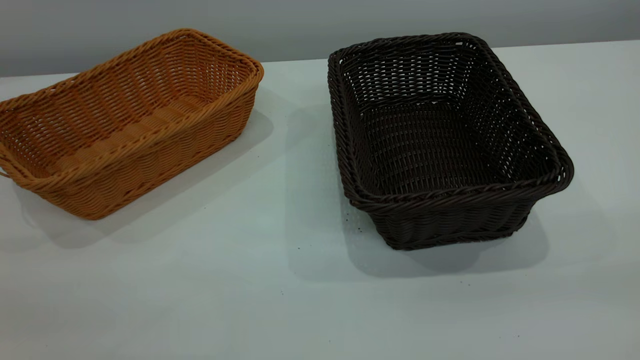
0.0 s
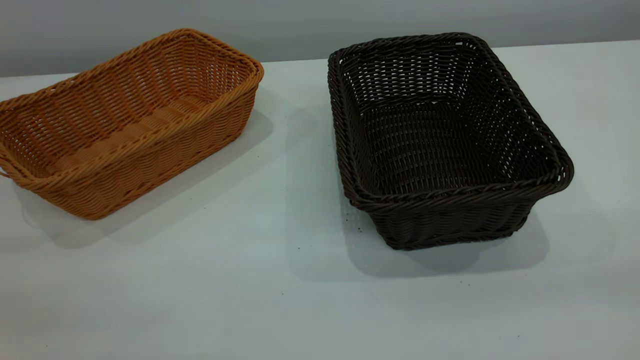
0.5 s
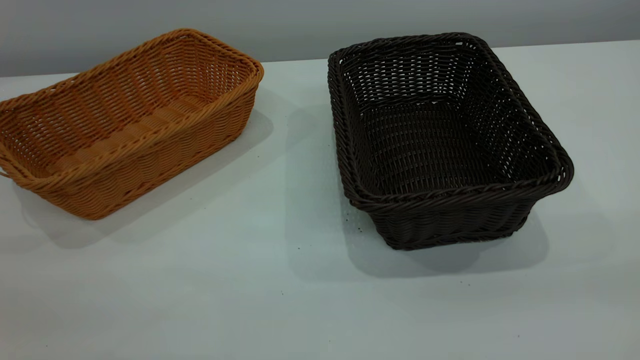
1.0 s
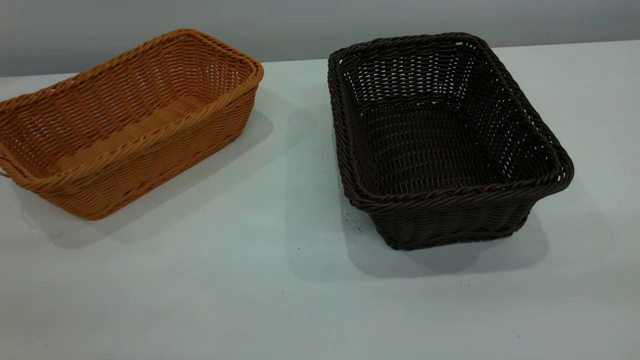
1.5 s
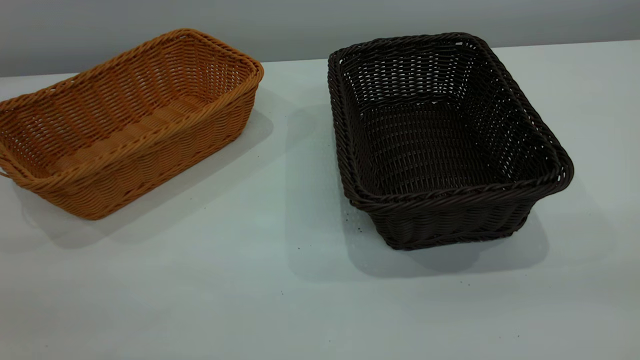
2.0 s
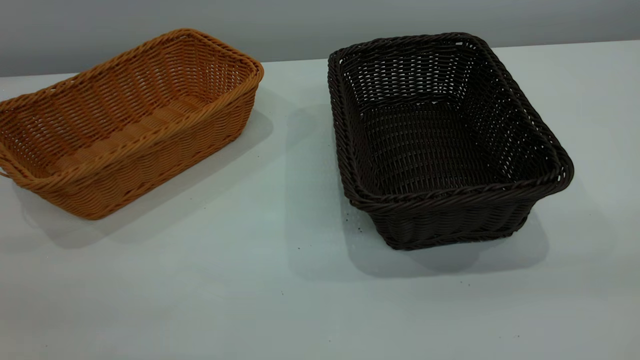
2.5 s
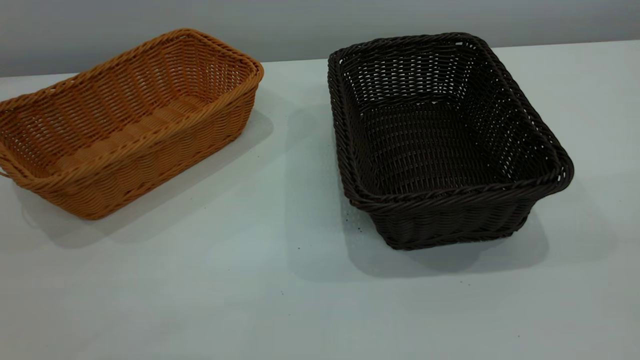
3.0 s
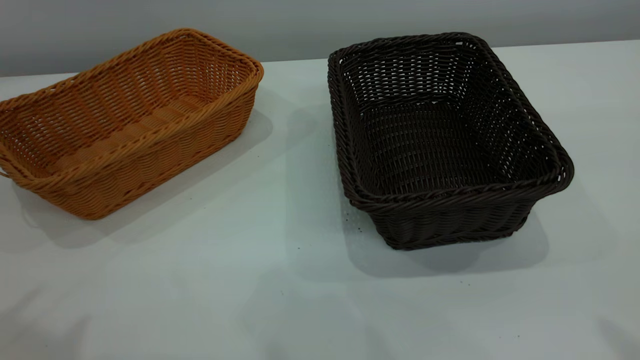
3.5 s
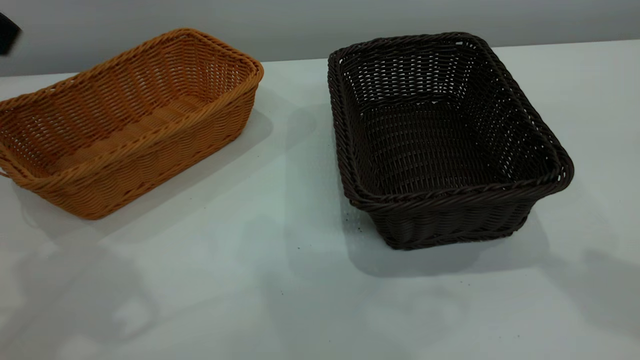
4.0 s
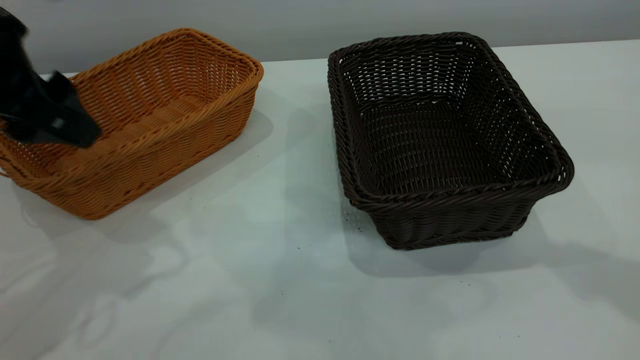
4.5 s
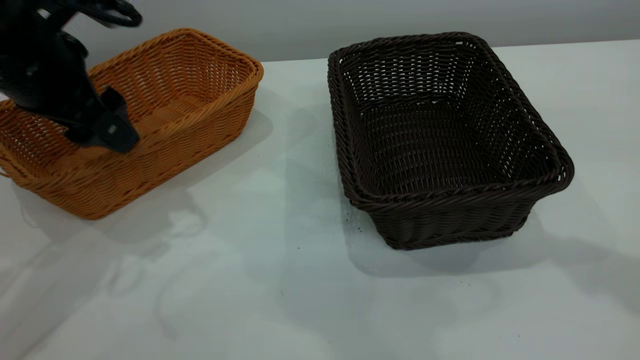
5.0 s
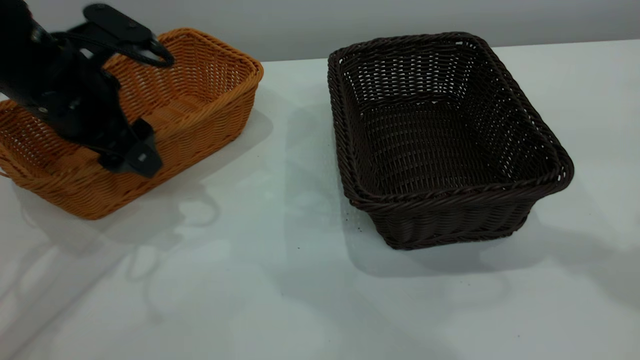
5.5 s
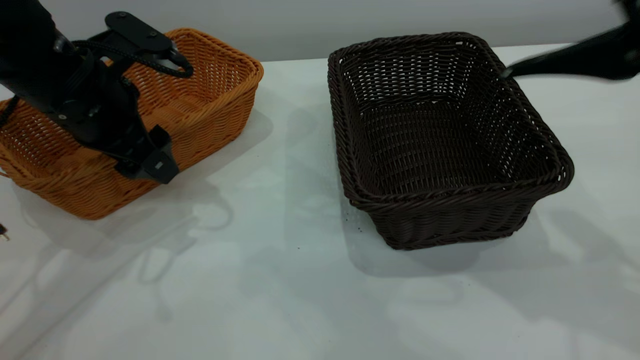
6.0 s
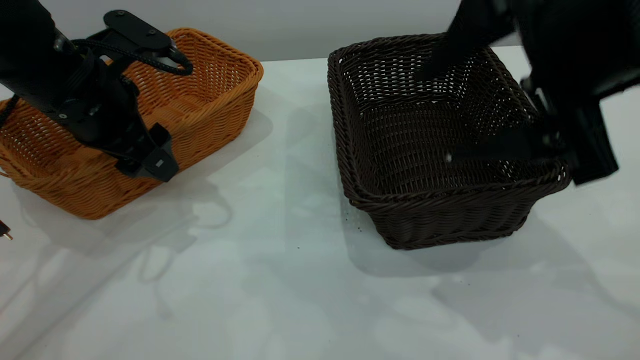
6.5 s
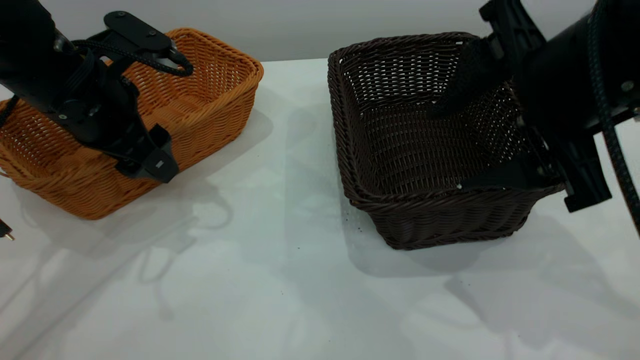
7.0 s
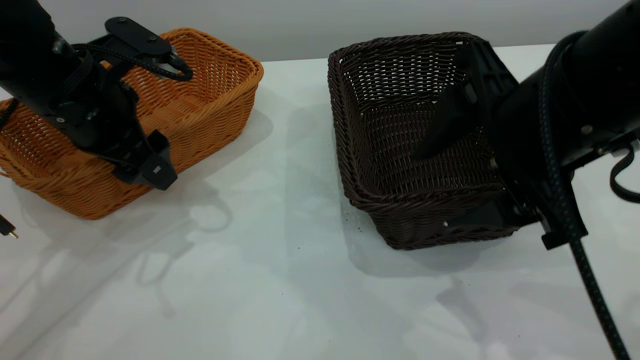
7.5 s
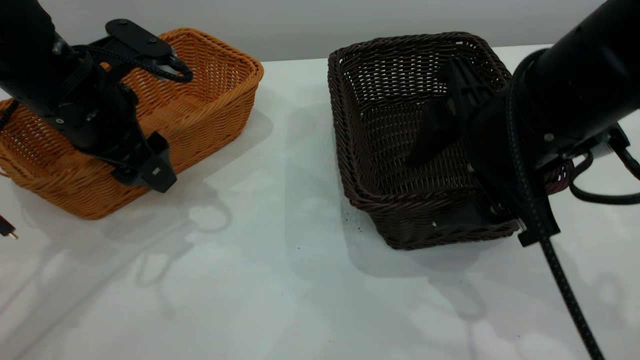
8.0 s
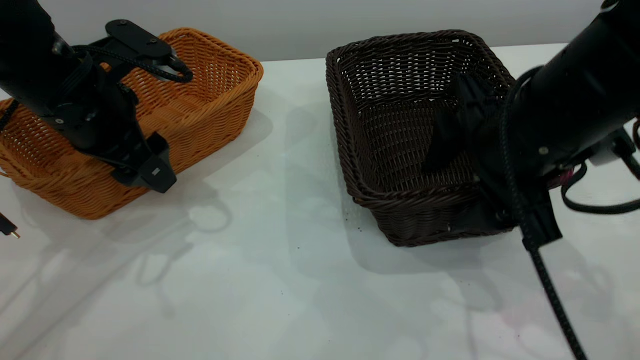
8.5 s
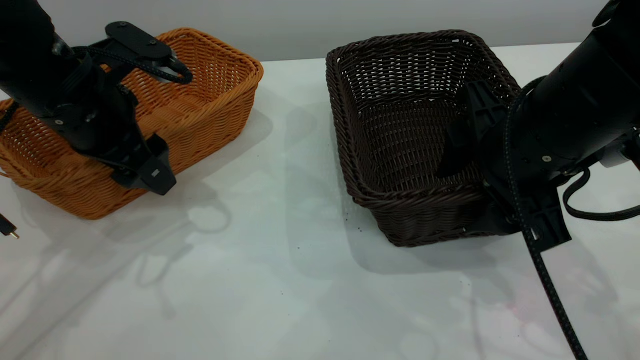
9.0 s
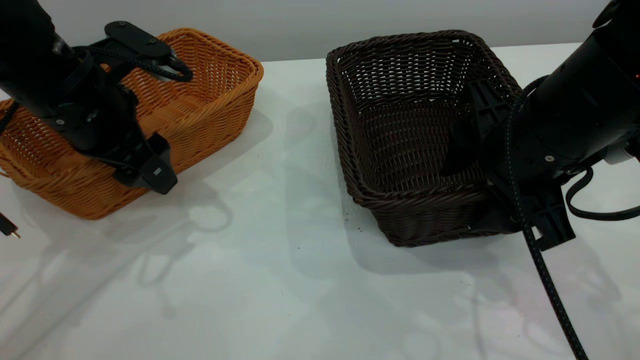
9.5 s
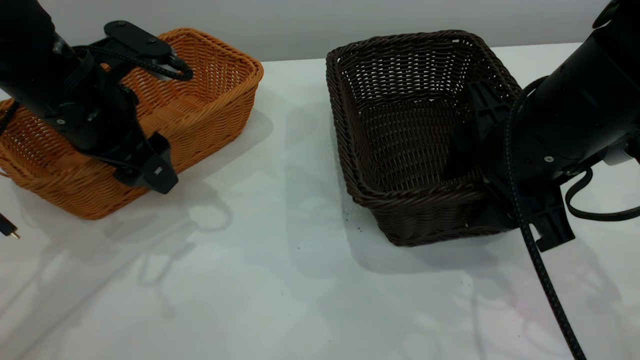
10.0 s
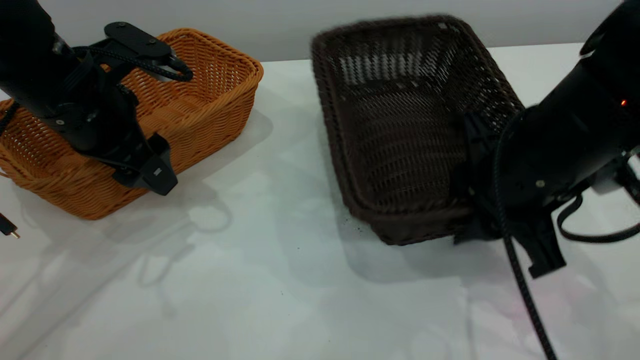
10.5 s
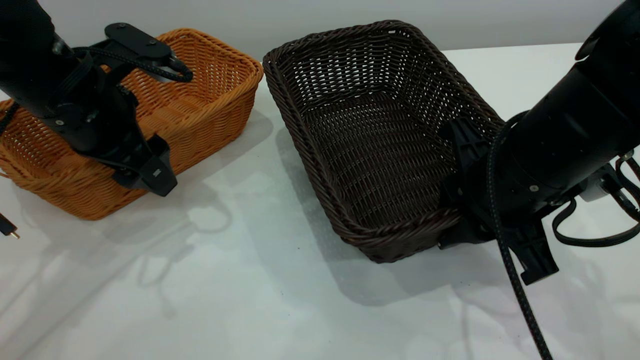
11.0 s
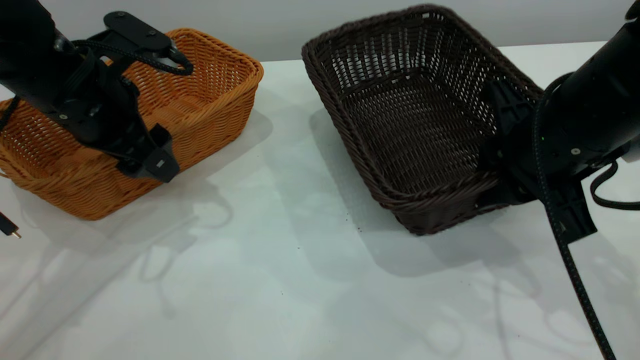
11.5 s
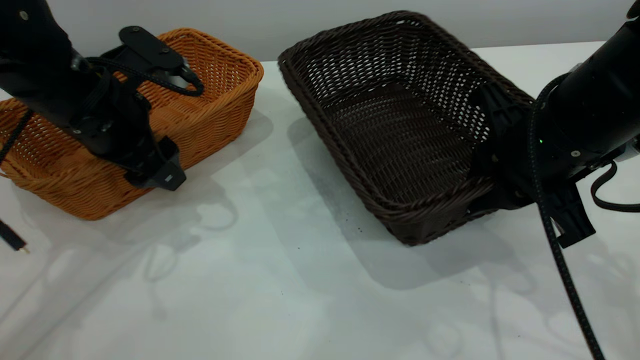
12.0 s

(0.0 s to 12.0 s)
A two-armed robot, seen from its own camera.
Task of the whole recording: the left gripper grasp the brown basket and place it in the center of the table, the right gripper grasp the black basket and place it inside the brown one.
0.0 s - 2.0 s: Neither gripper changes place.
4.0 s - 6.0 s: The right gripper heads downward and to the left, covering some 10 cm. The left gripper travels downward and forward by approximately 20 cm.
6.0 s - 8.0 s: The right gripper shifts about 10 cm downward and to the left.
8.0 s - 10.0 s: There are only small adjustments of the grippers.
10.0 s - 12.0 s: The right gripper closes its fingers.

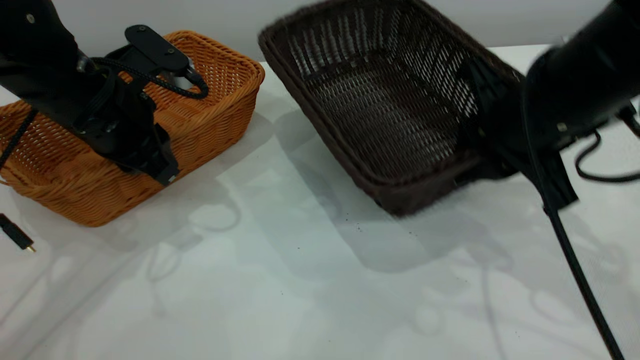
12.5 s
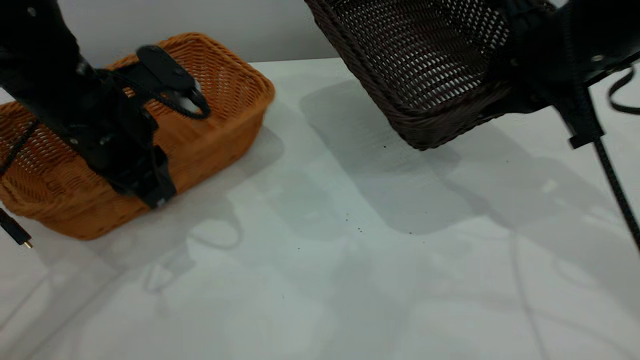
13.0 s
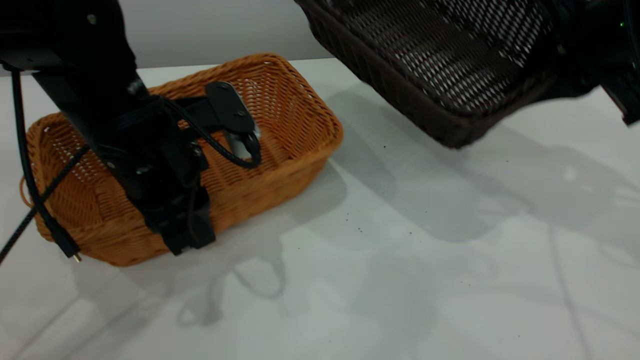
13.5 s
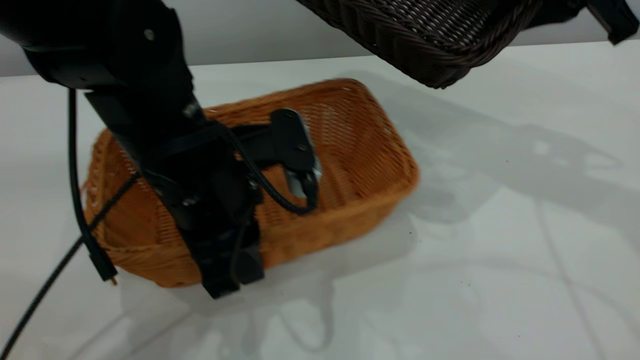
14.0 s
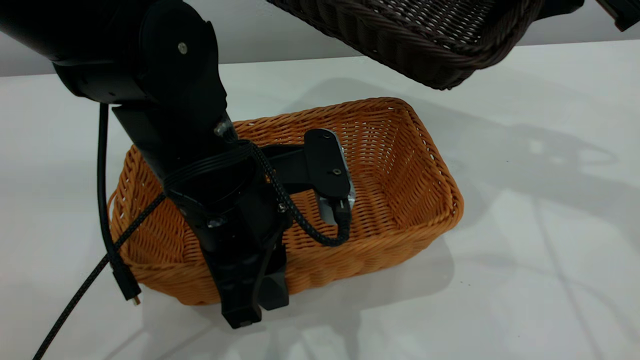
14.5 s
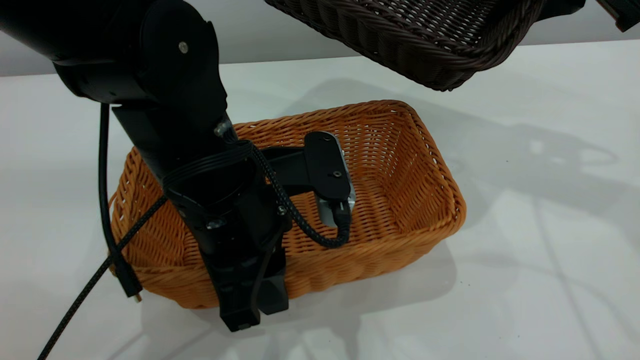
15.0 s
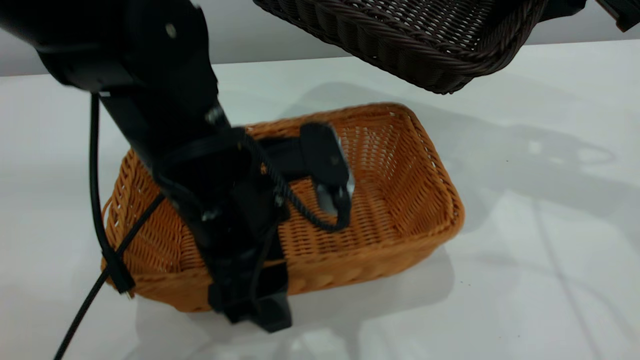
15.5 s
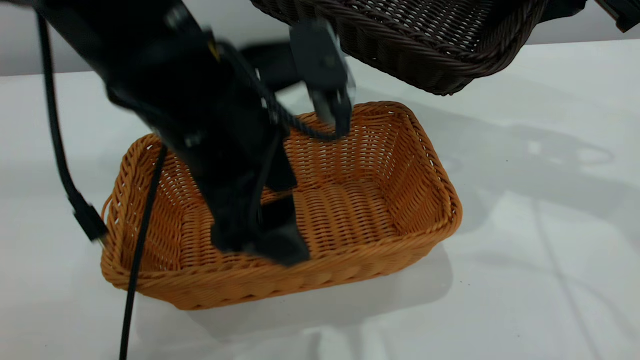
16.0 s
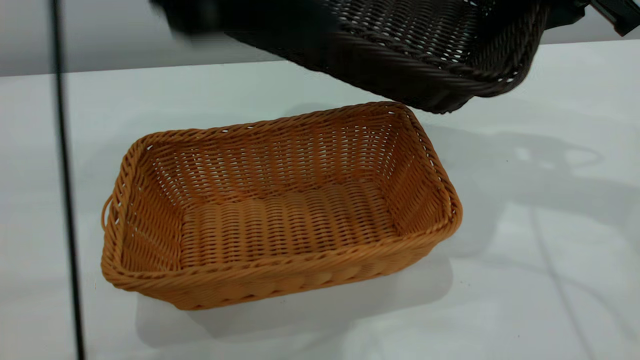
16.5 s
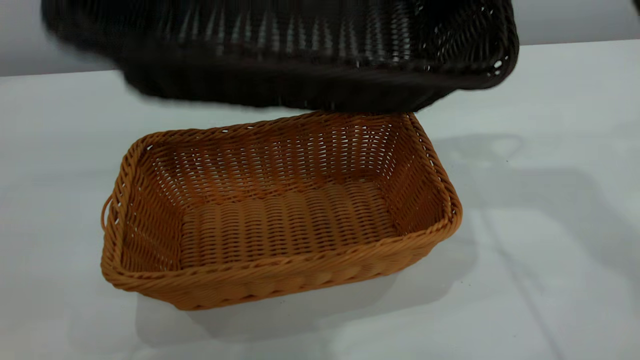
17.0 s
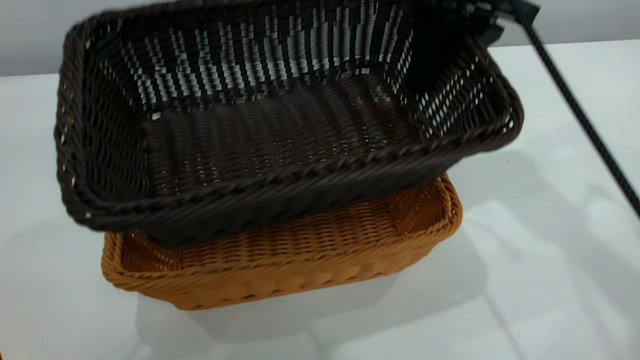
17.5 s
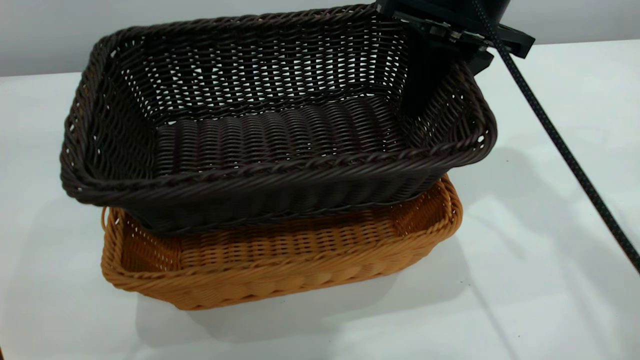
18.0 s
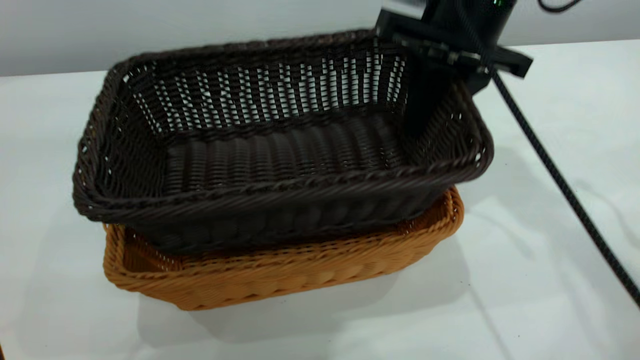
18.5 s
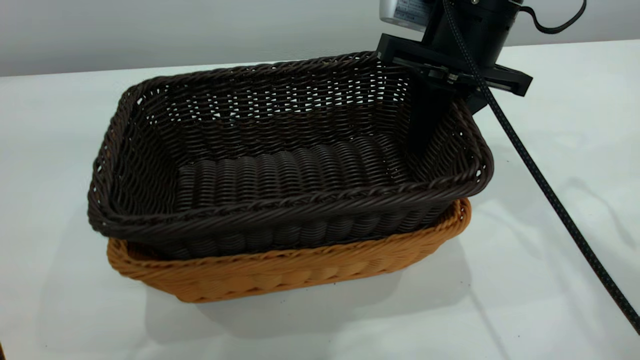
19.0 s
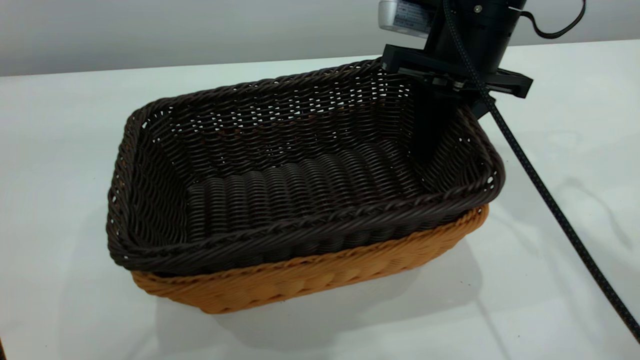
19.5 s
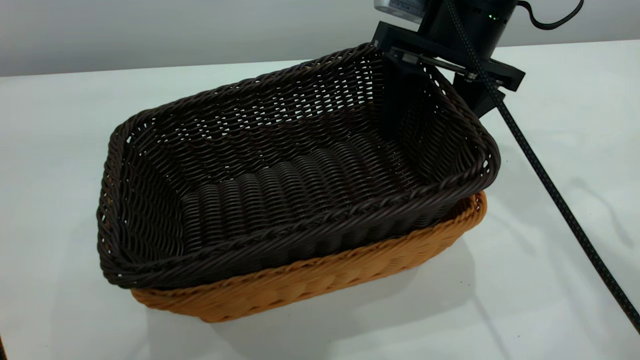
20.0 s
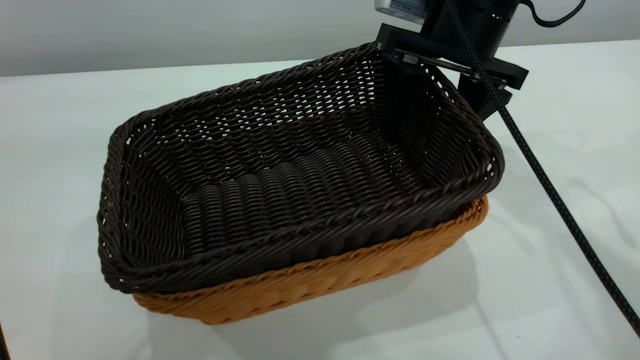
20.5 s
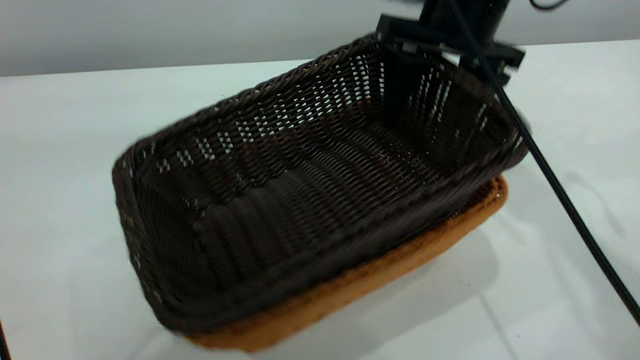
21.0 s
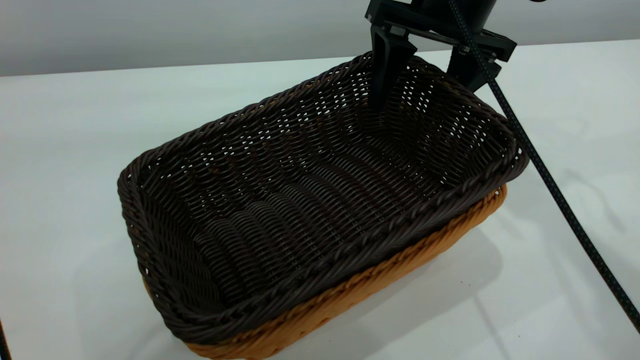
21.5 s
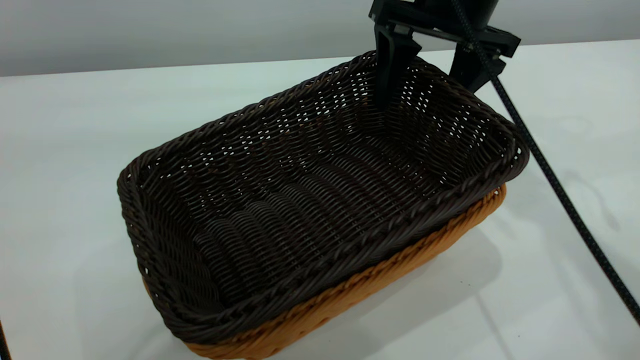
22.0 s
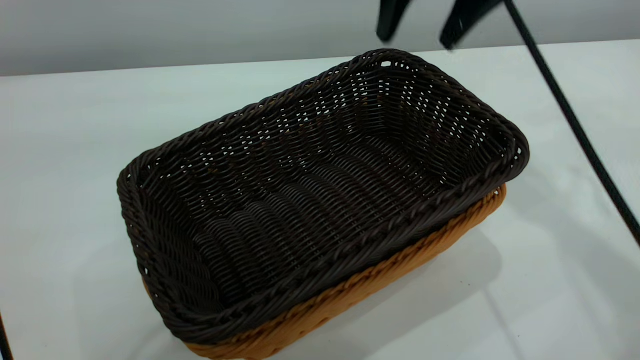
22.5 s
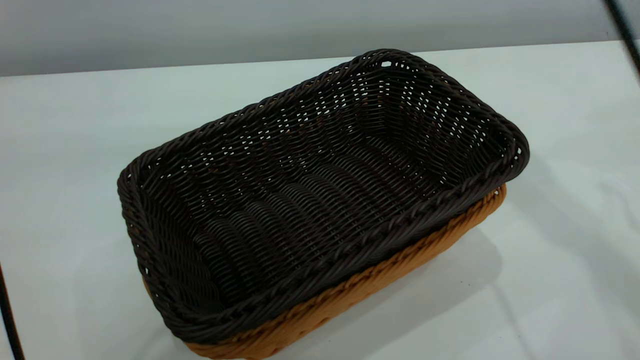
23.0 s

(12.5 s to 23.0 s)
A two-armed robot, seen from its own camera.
Task of the whole recording: the left gripper grasp the brown basket and place it in the center of the table, the right gripper grasp the black basket and place it inside the brown one.
Step, 13.0 s - 15.5 s: Place the light-colored basket in the center.
Step, 16.0 s - 22.5 s: Place the dark basket on top of the light basket.
12.5 s - 14.5 s: The left gripper travels to the right and backward by roughly 15 cm. The right gripper moves upward, forward and to the right, roughly 15 cm.
14.5 s - 16.5 s: The left gripper is displaced upward by some 25 cm, and opens its fingers.
16.5 s - 19.0 s: The left gripper is displaced upward by roughly 10 cm. Meanwhile the right gripper shifts about 10 cm to the left and downward.
19.0 s - 21.0 s: The right gripper opens its fingers.
21.0 s - 23.0 s: The right gripper moves upward, approximately 15 cm, and closes.
